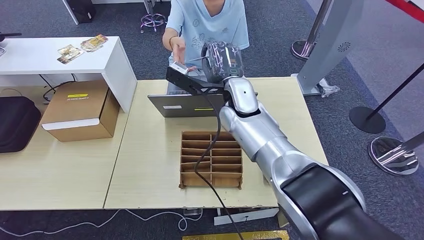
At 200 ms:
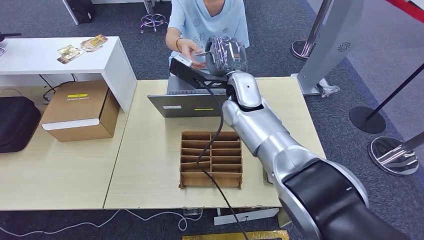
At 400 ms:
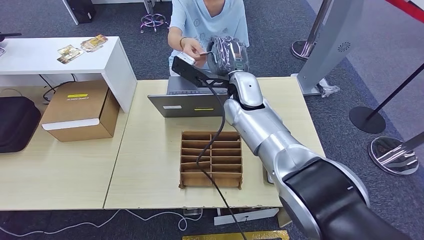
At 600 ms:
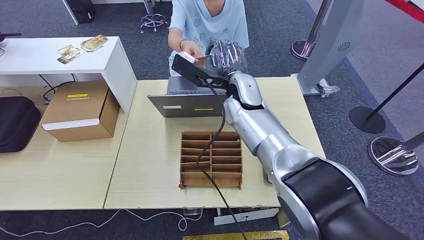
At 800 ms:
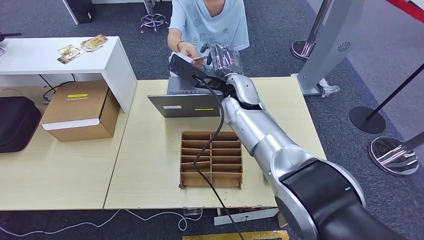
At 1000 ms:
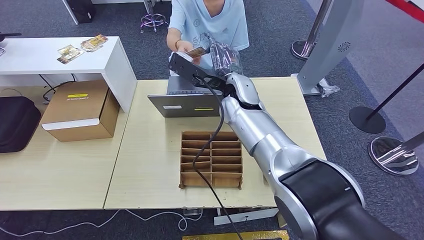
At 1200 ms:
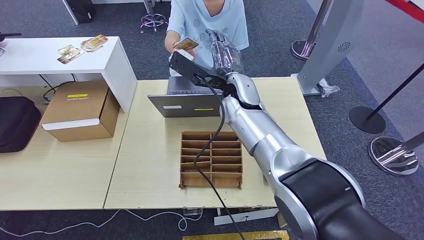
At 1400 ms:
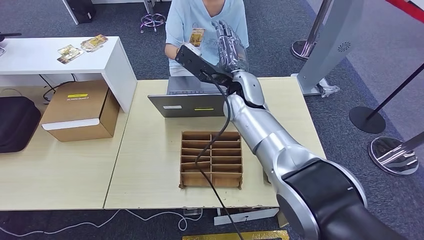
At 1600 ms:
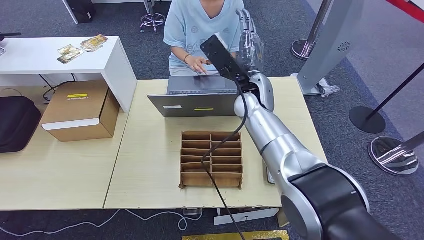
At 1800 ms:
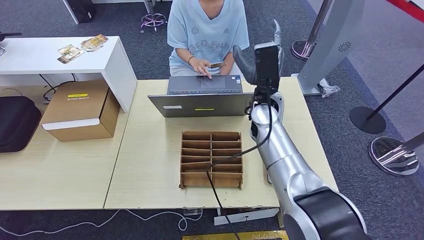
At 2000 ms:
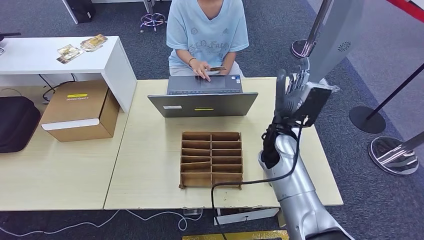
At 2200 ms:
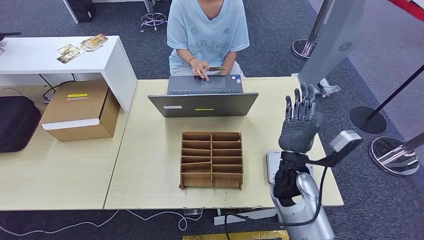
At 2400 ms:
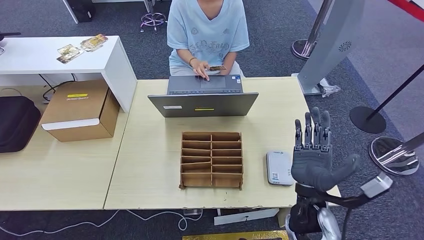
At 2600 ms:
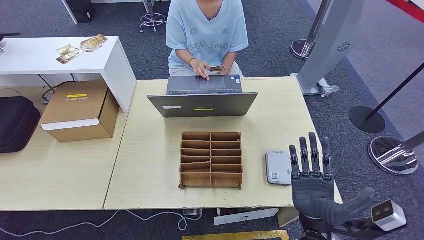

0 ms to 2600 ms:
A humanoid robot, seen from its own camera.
Step, 0 ms to 2600 ms: Hand the room key to the person.
0 ms to 1200 ms: The hands move only a little.
1200 ms to 2600 ms: The right hand is displaced backward, downward and to the right by some 35 cm.
